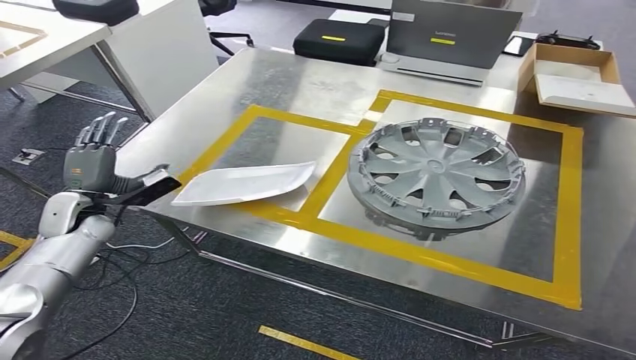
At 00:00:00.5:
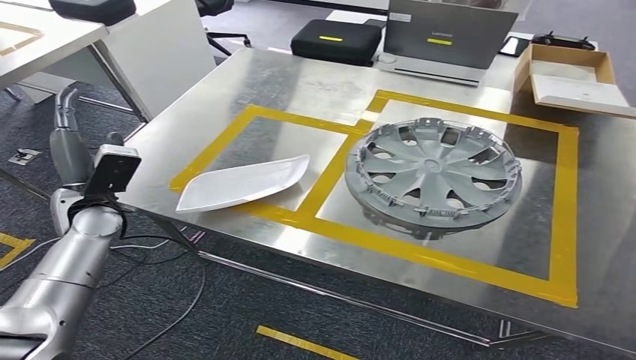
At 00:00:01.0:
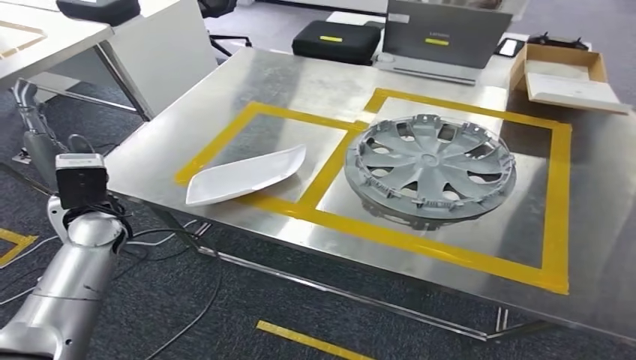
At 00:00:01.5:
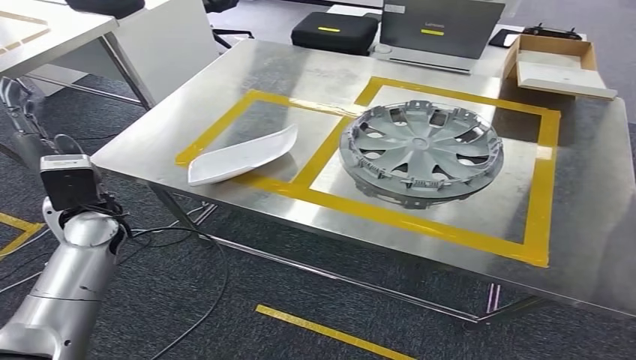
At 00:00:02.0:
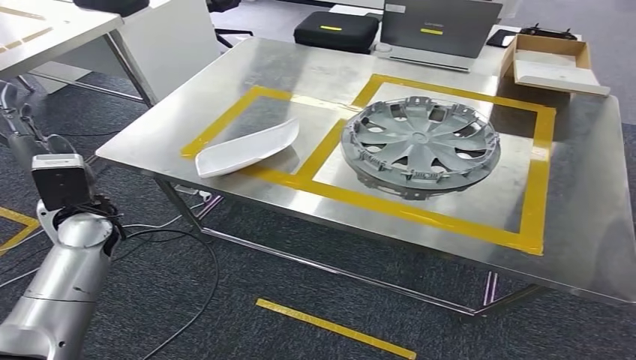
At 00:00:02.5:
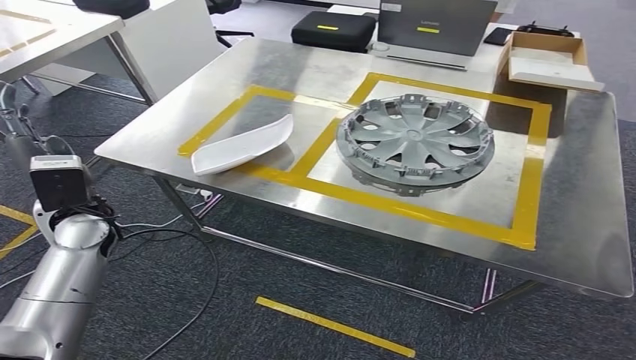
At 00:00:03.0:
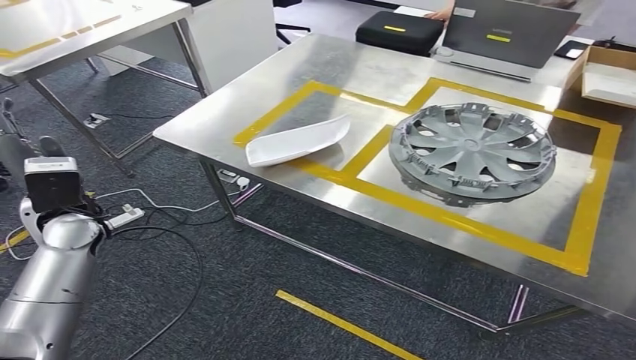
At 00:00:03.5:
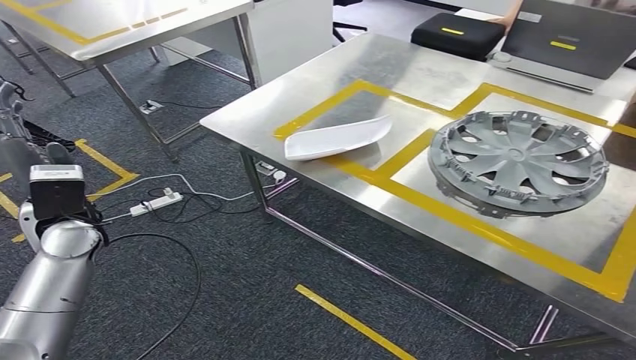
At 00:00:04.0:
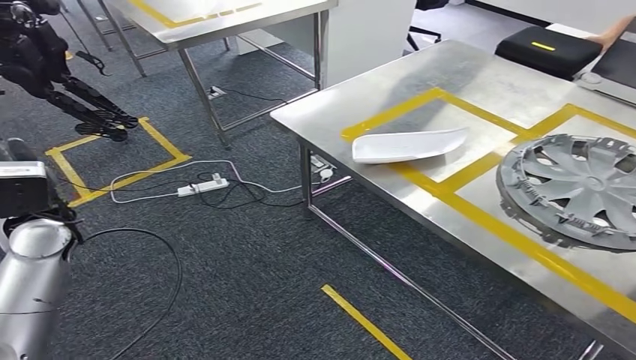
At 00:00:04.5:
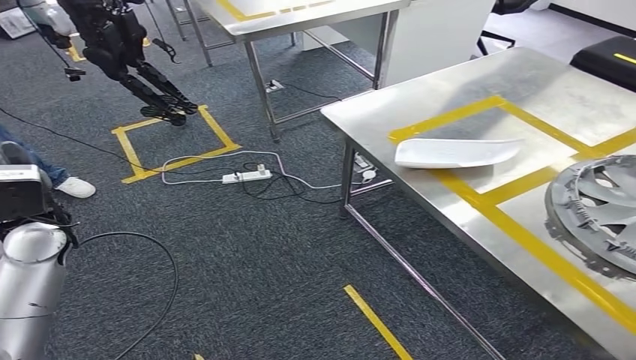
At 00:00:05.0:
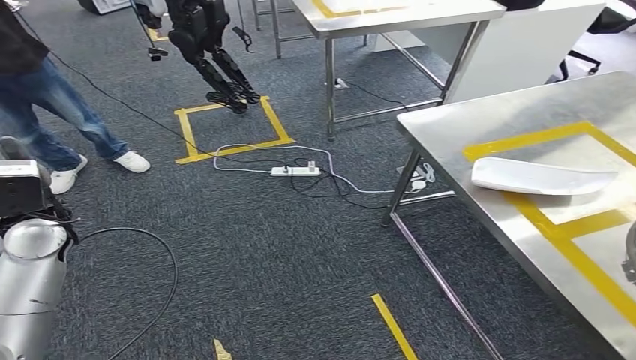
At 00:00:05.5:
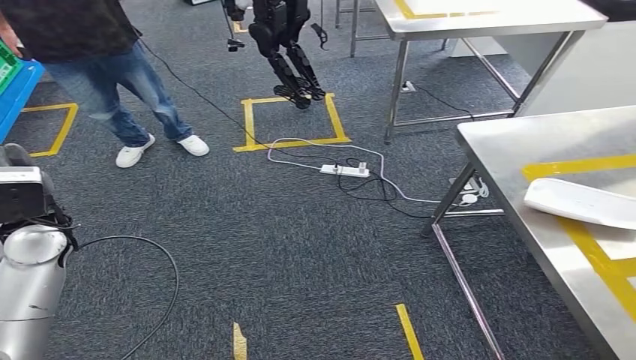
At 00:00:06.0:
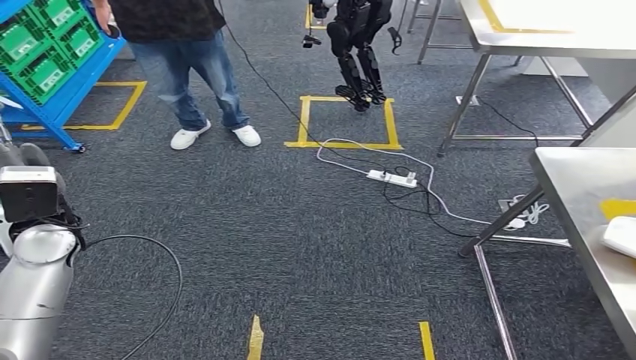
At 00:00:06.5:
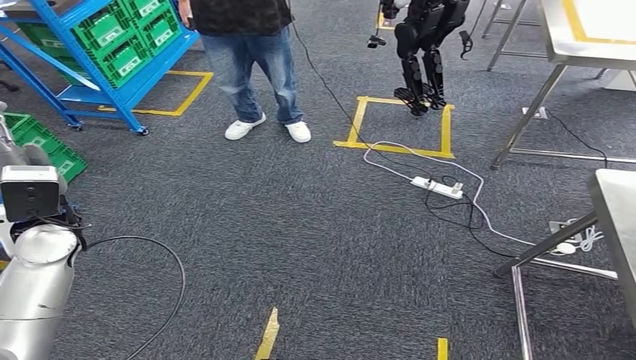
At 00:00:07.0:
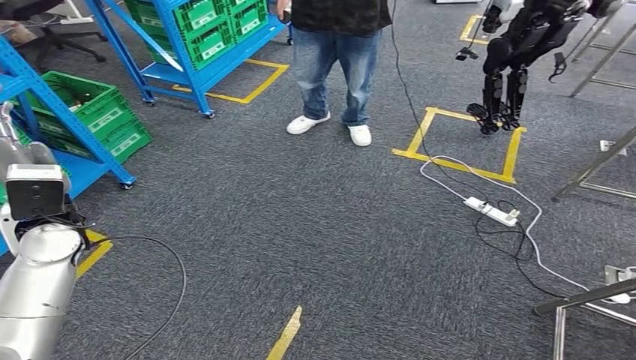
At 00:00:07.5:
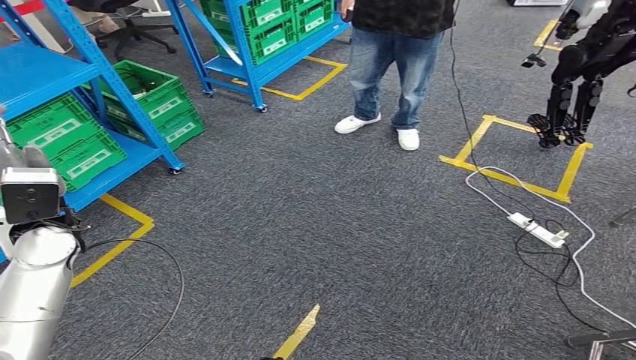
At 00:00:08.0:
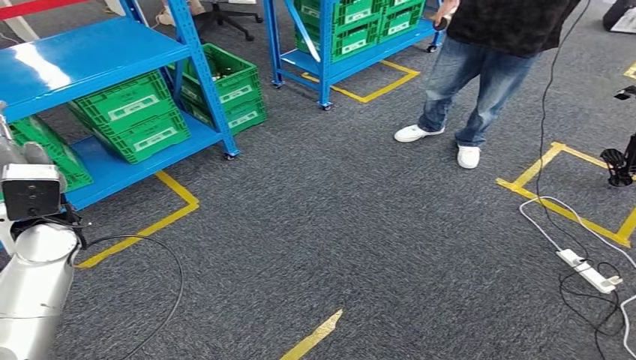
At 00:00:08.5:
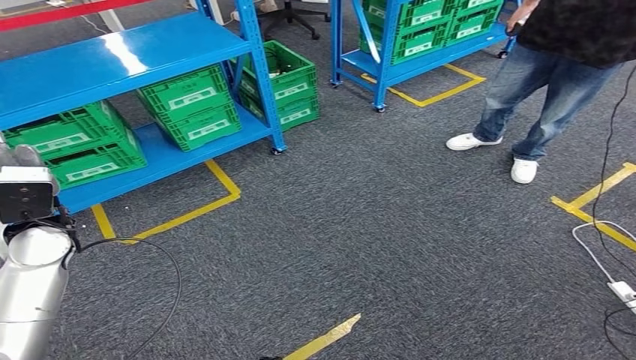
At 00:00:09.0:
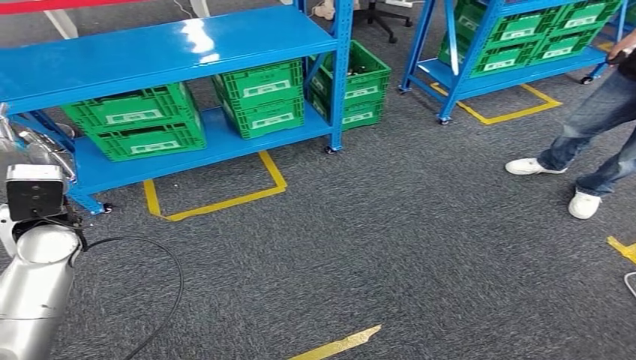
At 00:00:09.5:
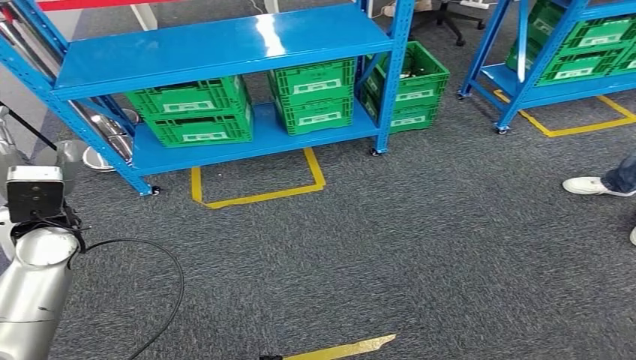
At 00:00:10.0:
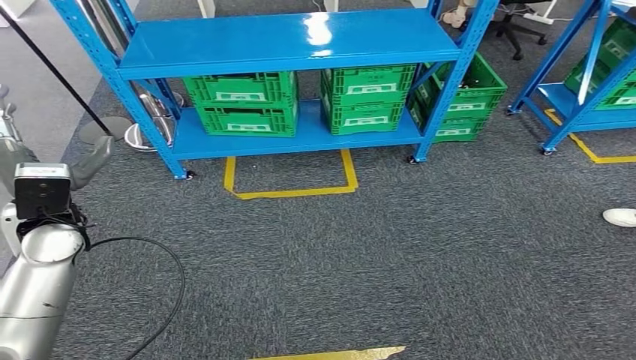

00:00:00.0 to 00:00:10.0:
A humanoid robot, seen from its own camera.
Step, 00:00:00.0 to 00:00:04.0: Insert the small component into the corresponding slot on the workbench.
Step, 00:00:04.5 to 00:00:10.0: Return to the initial position at the workbench.

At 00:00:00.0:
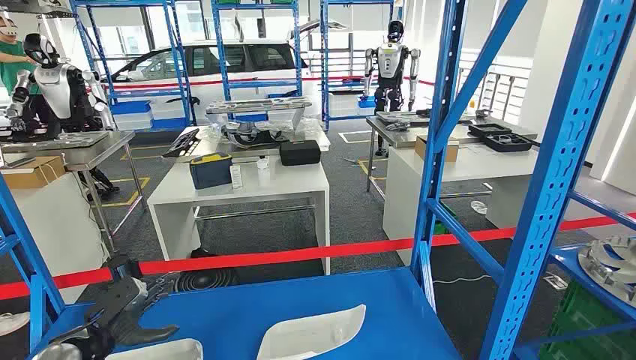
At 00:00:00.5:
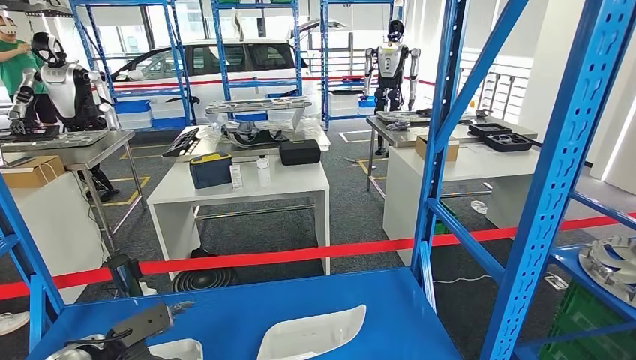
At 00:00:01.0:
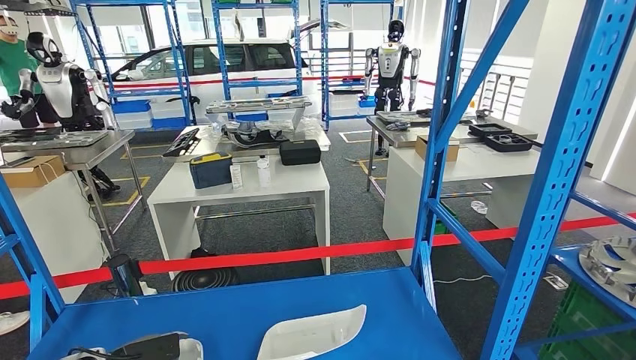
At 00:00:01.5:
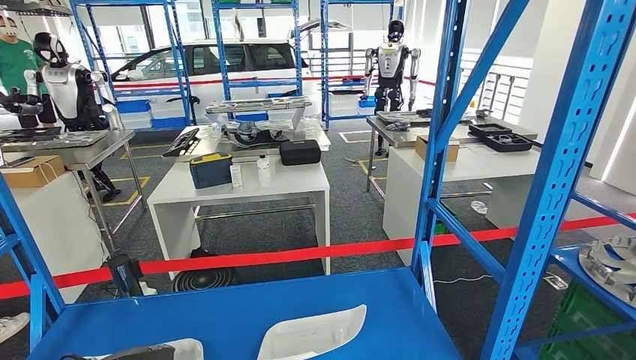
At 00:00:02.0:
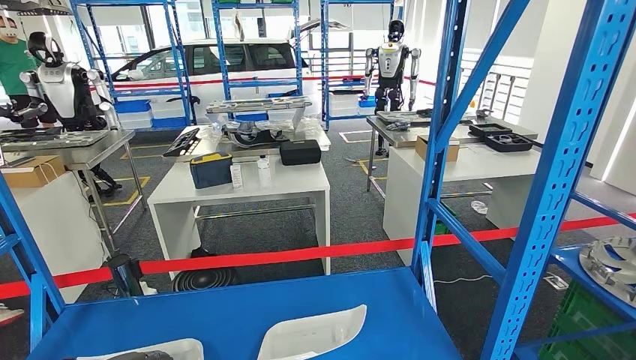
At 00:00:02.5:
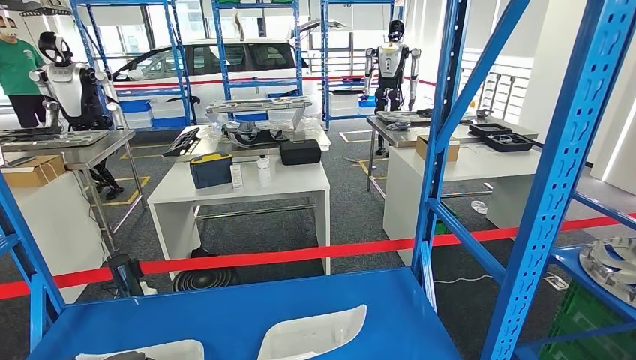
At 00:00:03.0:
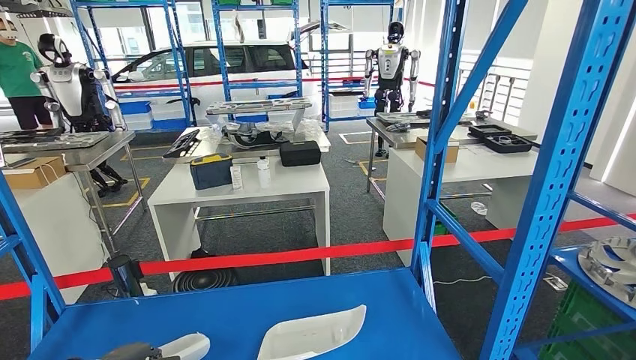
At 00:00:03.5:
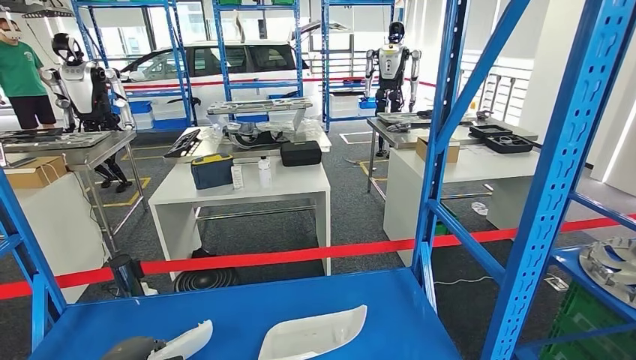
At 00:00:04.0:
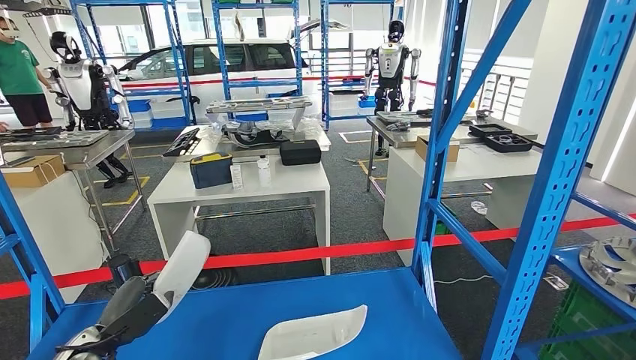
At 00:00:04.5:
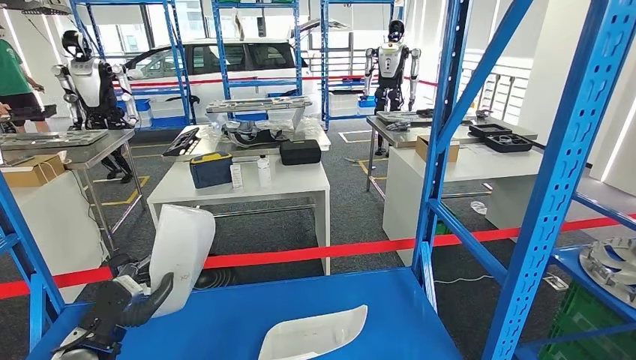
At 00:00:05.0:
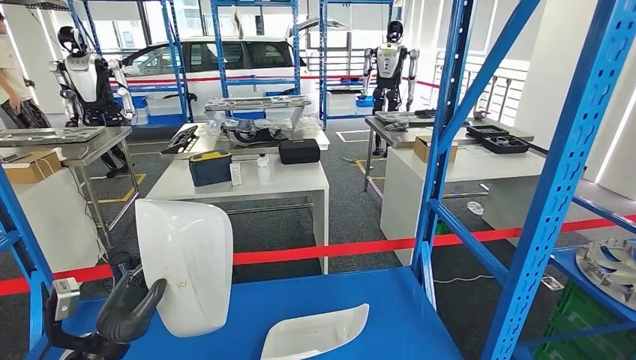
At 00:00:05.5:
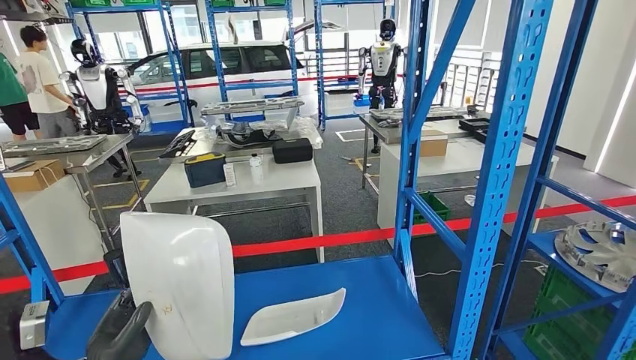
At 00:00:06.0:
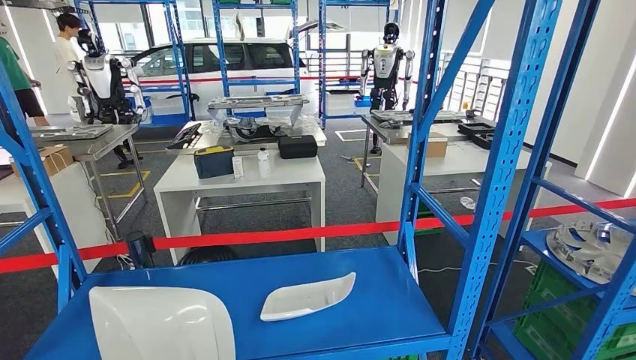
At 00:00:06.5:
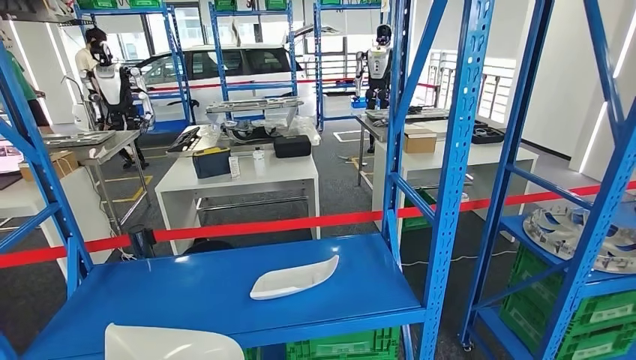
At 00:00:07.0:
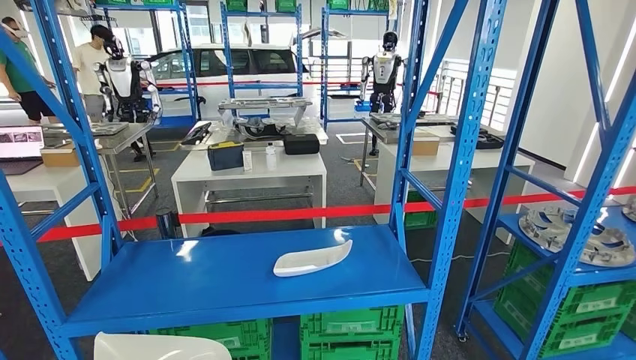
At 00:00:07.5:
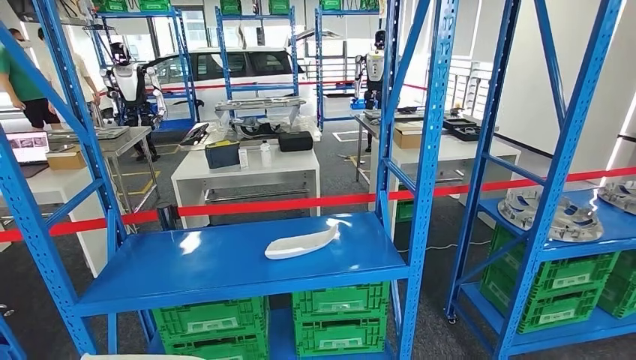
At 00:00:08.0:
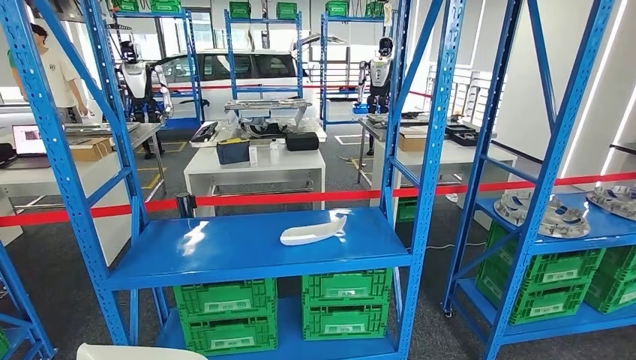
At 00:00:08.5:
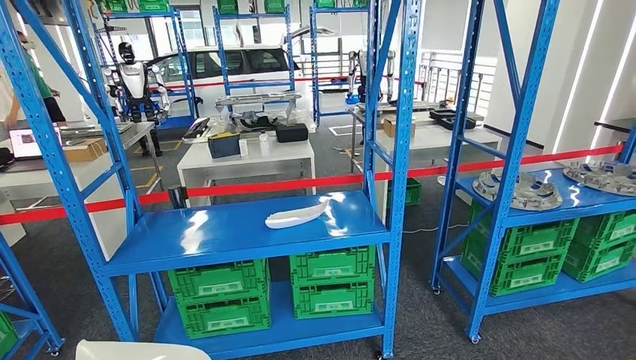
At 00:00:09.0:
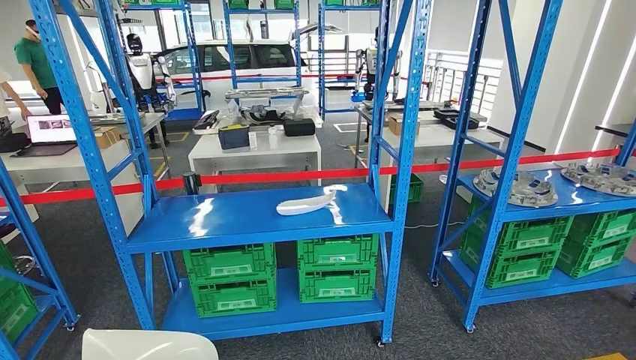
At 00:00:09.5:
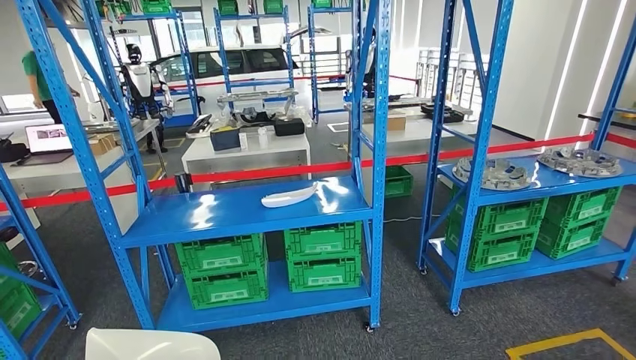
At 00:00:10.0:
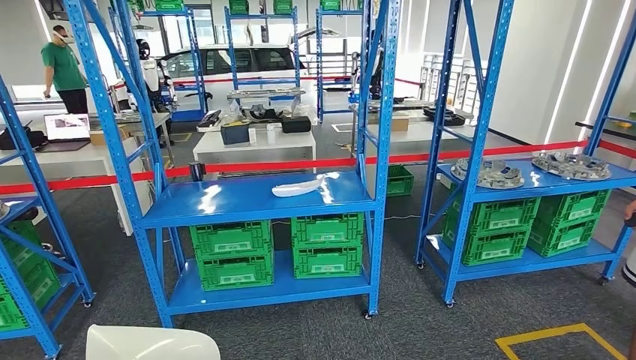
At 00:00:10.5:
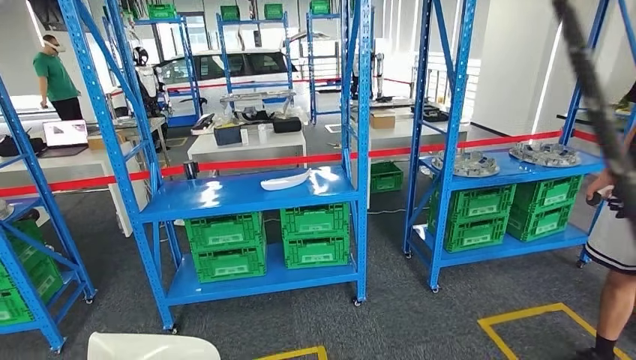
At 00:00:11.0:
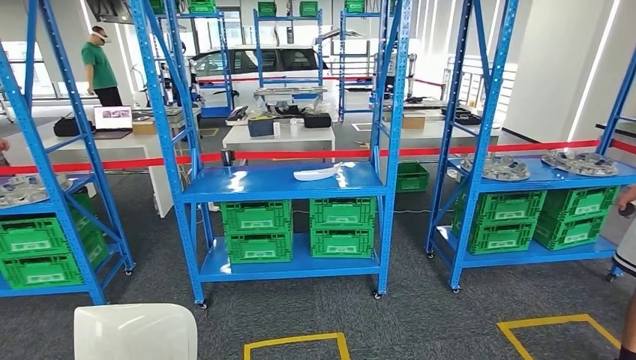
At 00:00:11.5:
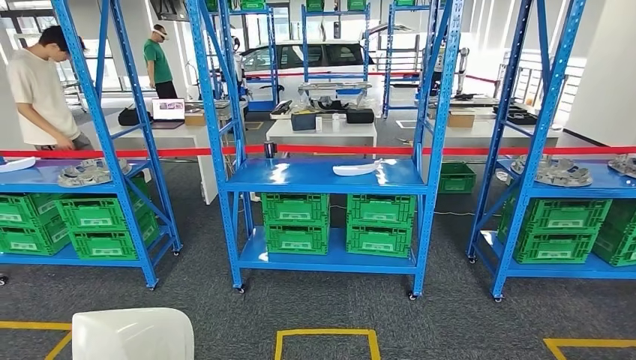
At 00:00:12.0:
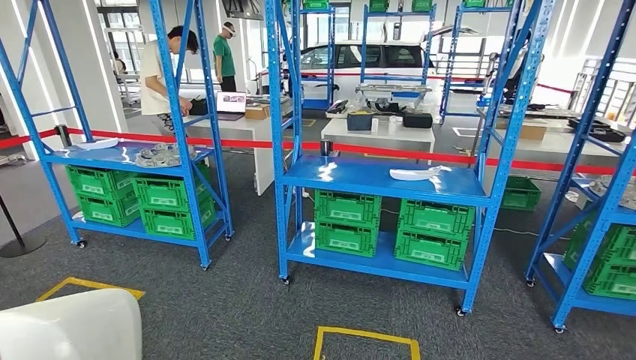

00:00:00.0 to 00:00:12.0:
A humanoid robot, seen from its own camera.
Step, 00:00:00.0 to 00:00:05.5: Pick up the small component from the shelf.
00:00:02.0 to 00:00:04.0: The left hand travels to the right by some 5 cm.
